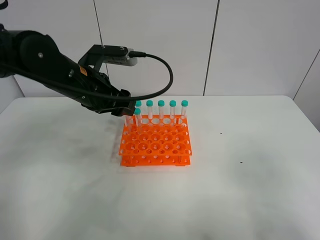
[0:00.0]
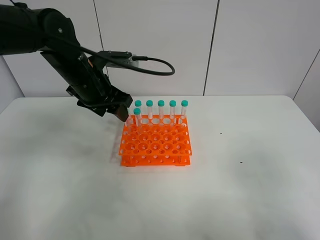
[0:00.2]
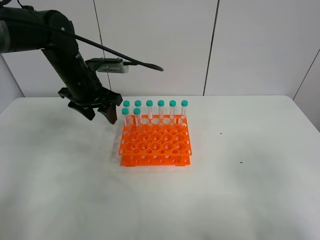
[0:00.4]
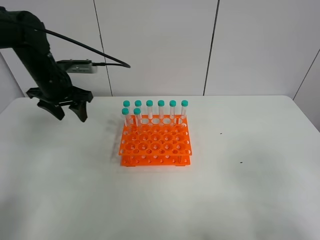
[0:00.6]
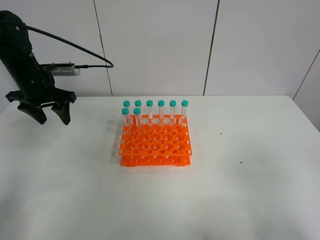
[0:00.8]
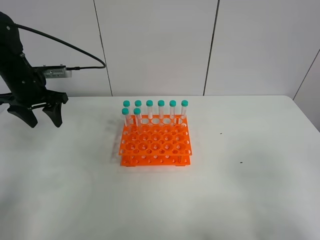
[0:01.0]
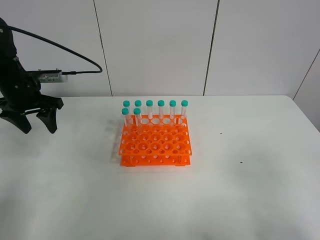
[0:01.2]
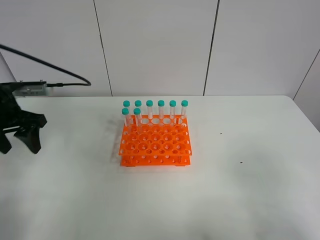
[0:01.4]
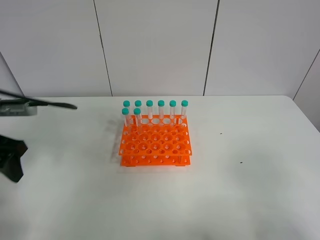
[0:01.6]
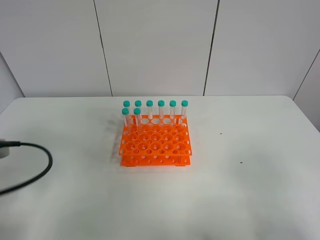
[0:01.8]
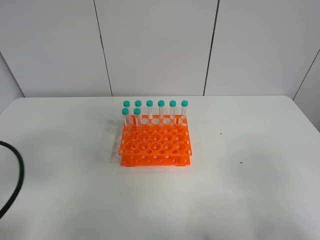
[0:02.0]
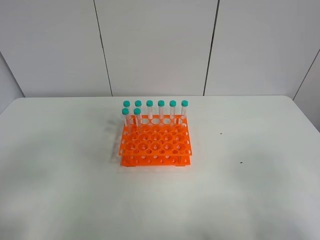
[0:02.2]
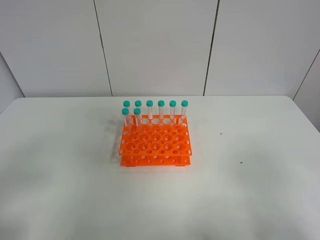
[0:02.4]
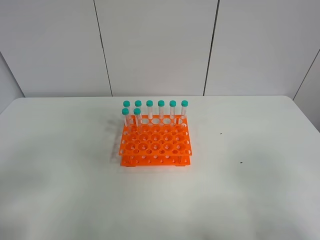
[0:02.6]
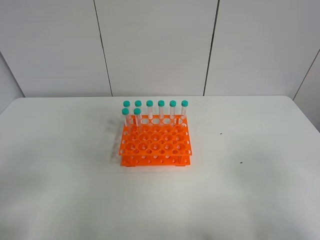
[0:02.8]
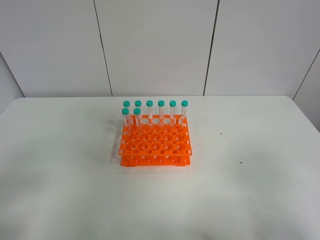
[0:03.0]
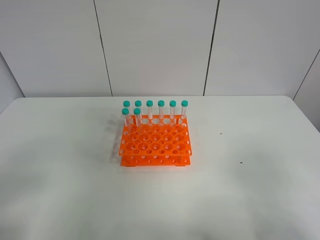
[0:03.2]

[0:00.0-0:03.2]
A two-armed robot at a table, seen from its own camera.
Task of the whole recording: Put the test tube on the table back onto the test tube rack.
0:00.0 to 0:01.6: The left gripper moves to the left and backward, approximately 20 cm.
0:01.6 to 0:03.2: The left gripper travels backward by approximately 20 cm.

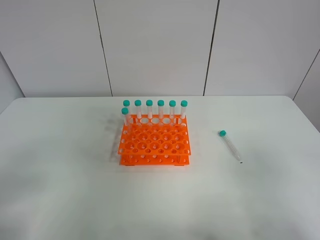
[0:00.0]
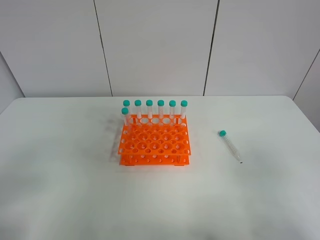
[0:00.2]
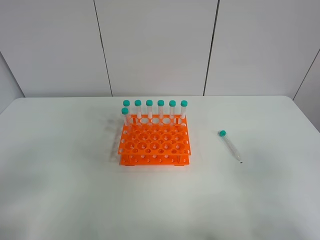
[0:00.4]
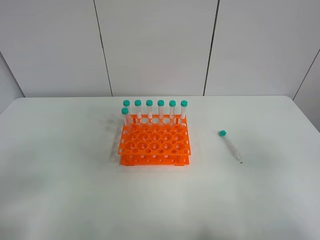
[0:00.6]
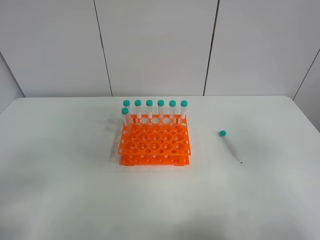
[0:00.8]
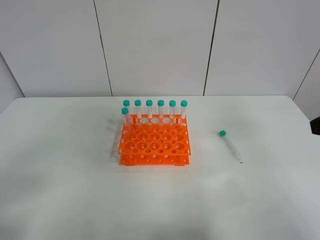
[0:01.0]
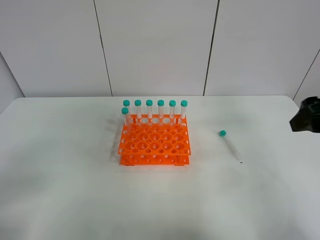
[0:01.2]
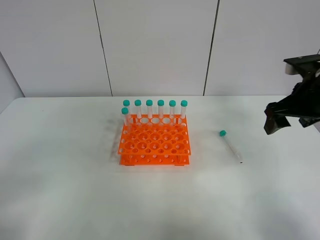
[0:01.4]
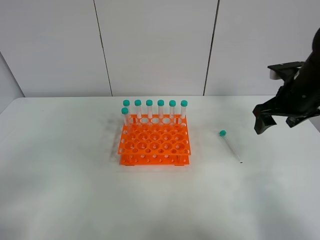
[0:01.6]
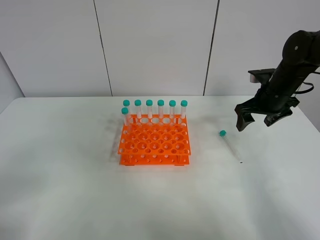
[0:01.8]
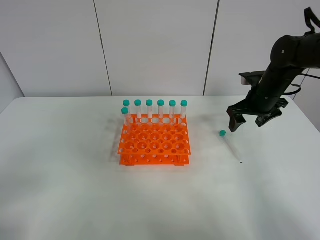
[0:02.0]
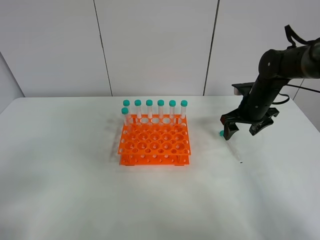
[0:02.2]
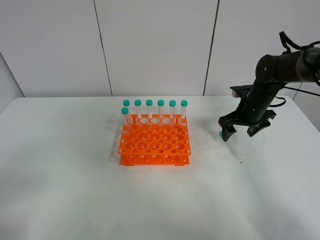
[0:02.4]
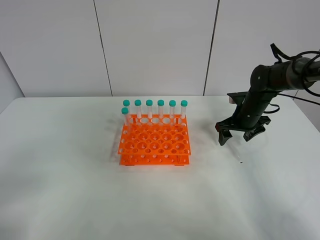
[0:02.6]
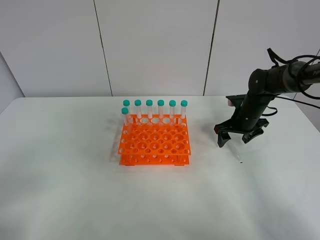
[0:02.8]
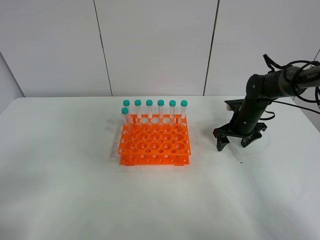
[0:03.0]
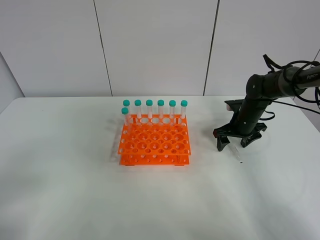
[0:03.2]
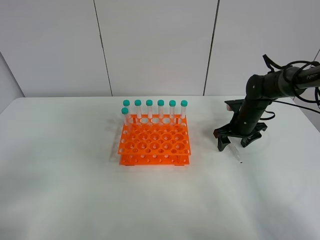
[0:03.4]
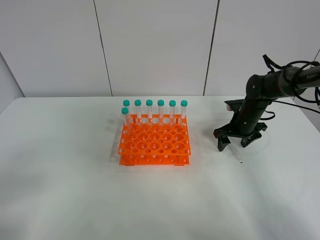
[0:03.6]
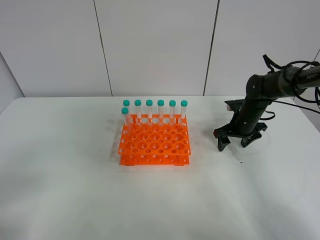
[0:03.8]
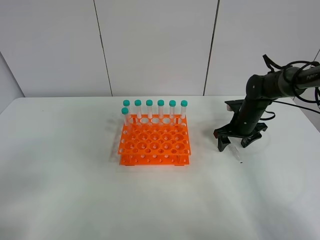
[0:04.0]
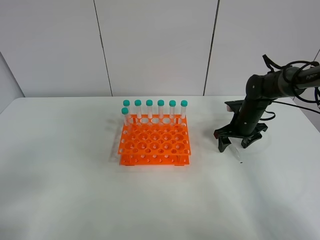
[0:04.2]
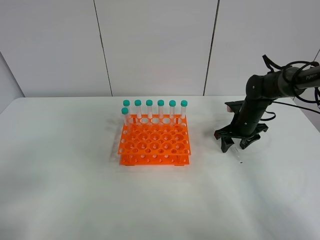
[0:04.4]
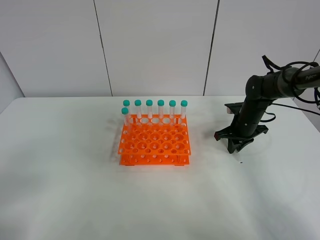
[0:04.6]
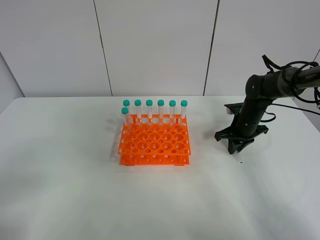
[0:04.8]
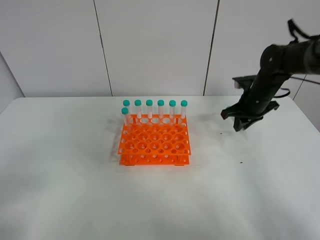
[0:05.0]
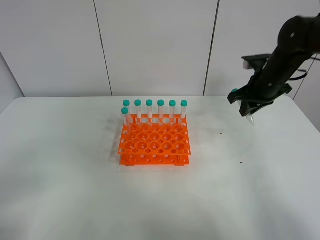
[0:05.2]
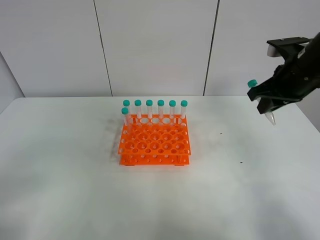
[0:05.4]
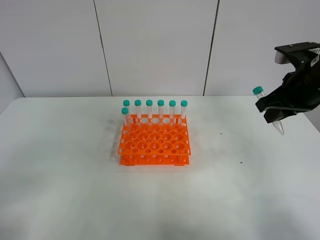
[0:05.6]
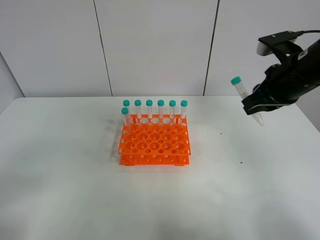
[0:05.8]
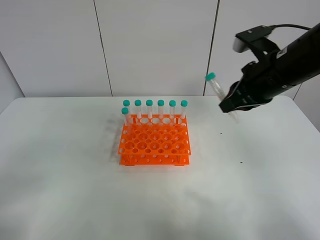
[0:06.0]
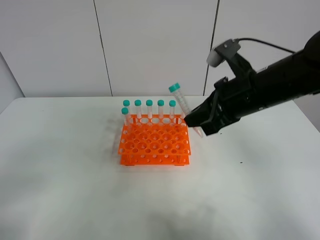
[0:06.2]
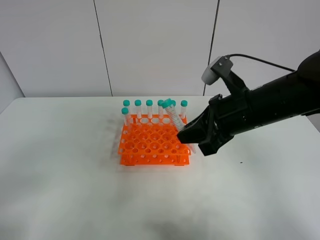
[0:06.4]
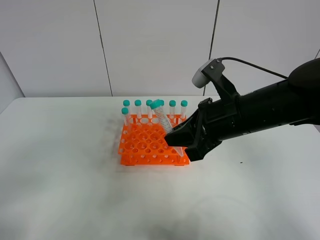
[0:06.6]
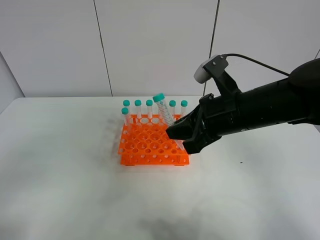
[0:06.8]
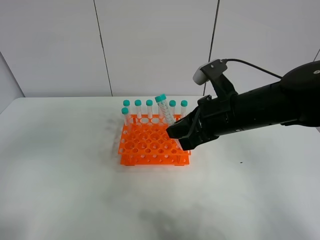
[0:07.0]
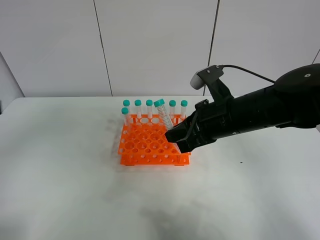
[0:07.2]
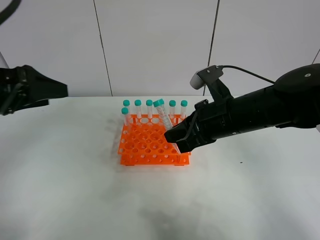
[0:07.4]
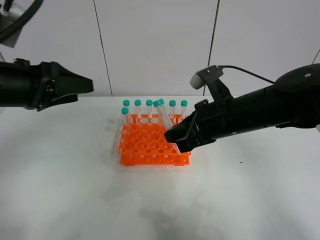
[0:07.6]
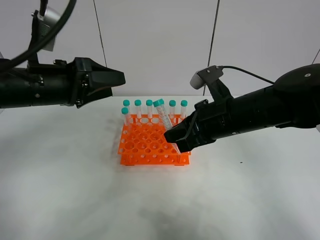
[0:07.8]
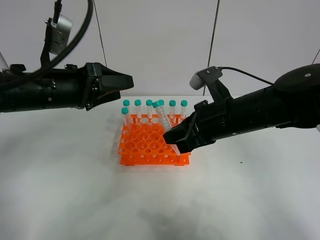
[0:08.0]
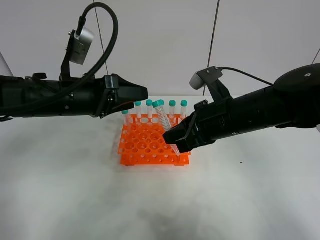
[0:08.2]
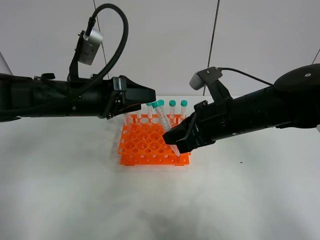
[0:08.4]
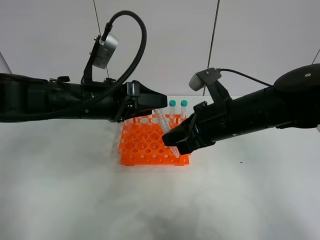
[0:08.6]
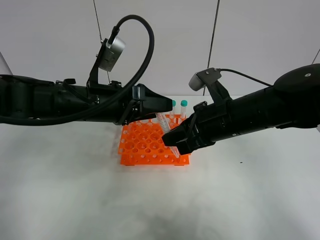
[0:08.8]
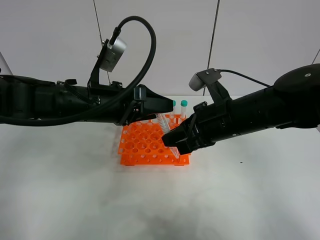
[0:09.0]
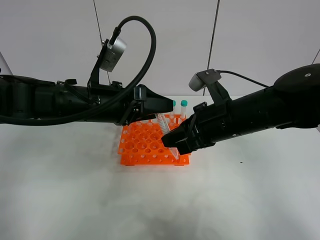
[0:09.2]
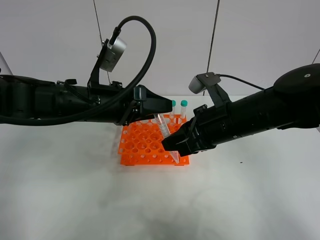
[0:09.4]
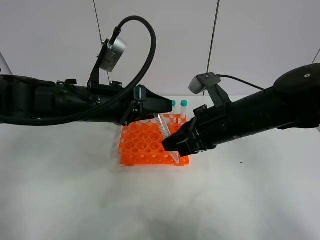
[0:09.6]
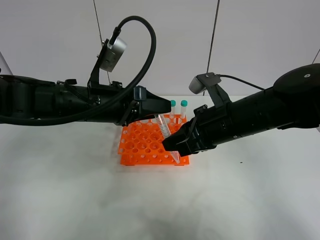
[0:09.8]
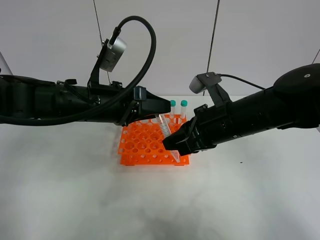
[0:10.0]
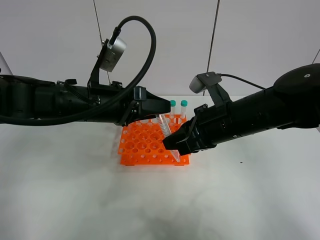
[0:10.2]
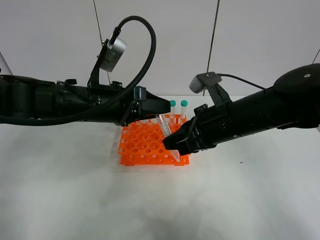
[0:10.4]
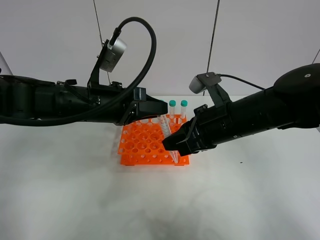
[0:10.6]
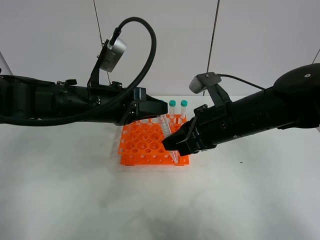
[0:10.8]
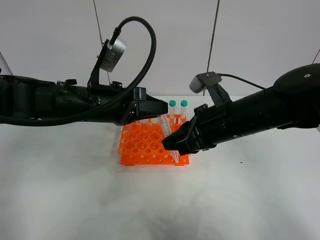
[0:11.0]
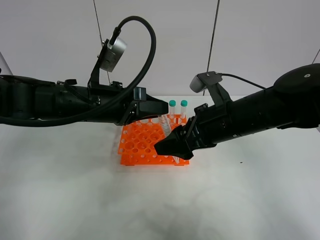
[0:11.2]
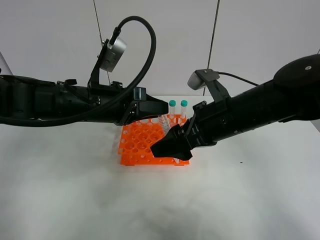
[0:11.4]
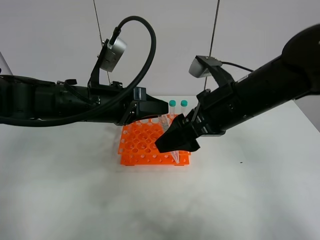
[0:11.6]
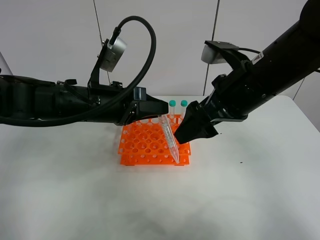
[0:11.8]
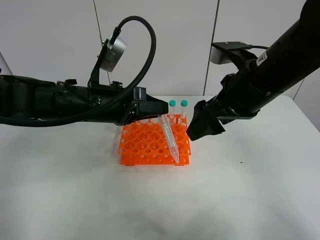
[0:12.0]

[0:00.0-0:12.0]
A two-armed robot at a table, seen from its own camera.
Task of the whole recording: Put the test tube on the table back onto the test tube rack.
Step, 0:00.0 to 0:05.2: Pick up the test tube with the right gripper.
0:00.0 to 0:01.6: The right gripper heads forward, covering about 35 cm.
0:01.6 to 0:03.0: The right gripper heads downward and forward, covering about 15 cm.
0:03.0 to 0:04.4: The right gripper closes.
0:04.4 to 0:06.0: The right gripper travels upward and backward by roughly 25 cm, and closes.
0:06.0 to 0:07.6: The right gripper goes approximately 5 cm downward. Meanwhile the left gripper goes some 25 cm forward.
0:07.6 to 0:09.0: The left gripper shifts approximately 10 cm to the right and downward.
0:09.0 to 0:10.4: The left gripper closes its fingers.
0:10.4 to 0:12.0: The right gripper moves upward, approximately 5 cm, and opens. Meanwhile the left gripper closes.

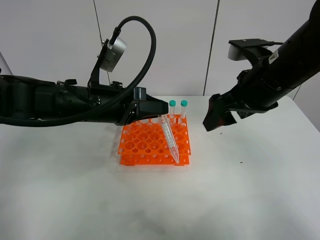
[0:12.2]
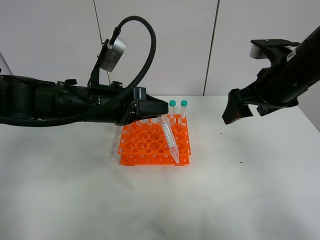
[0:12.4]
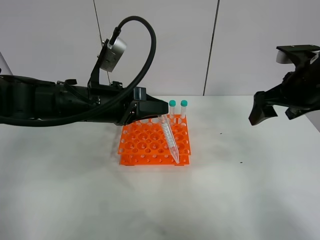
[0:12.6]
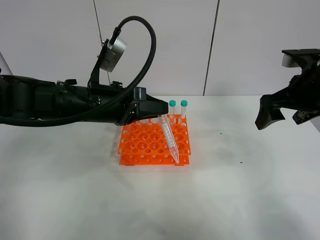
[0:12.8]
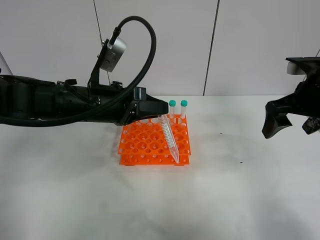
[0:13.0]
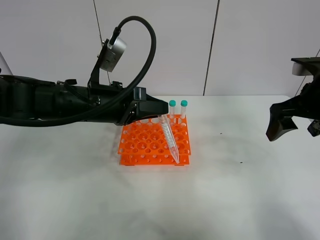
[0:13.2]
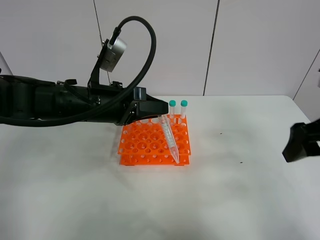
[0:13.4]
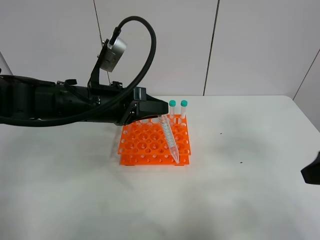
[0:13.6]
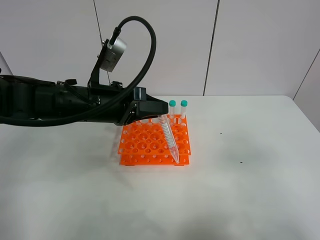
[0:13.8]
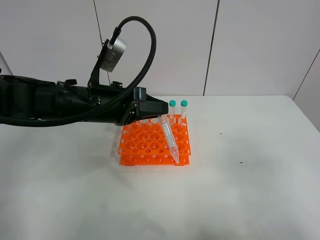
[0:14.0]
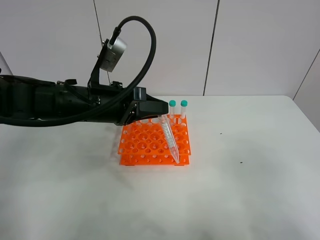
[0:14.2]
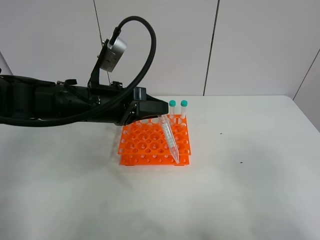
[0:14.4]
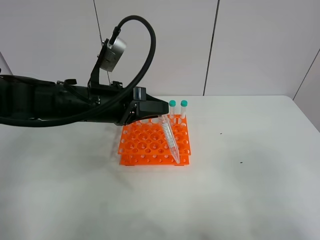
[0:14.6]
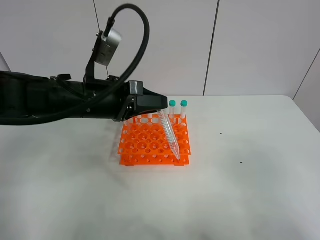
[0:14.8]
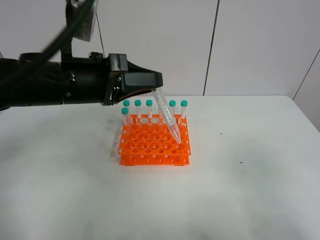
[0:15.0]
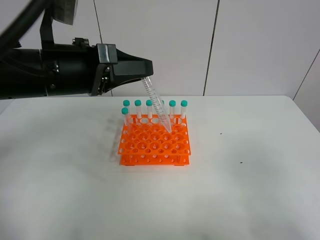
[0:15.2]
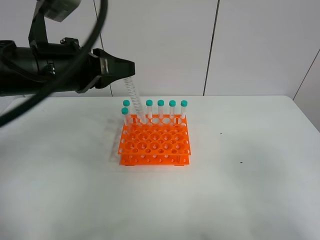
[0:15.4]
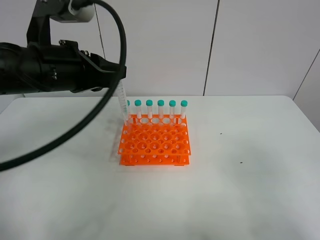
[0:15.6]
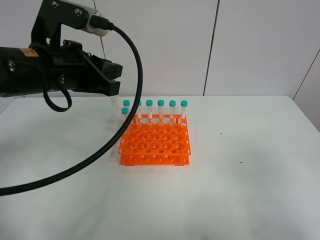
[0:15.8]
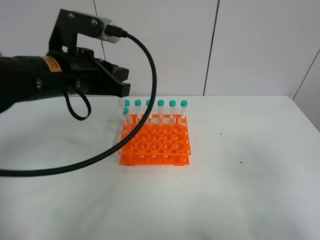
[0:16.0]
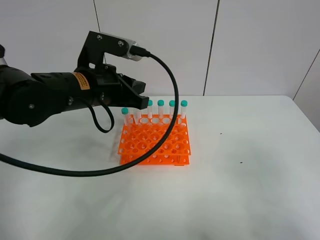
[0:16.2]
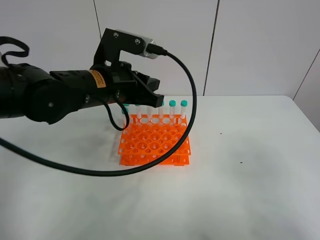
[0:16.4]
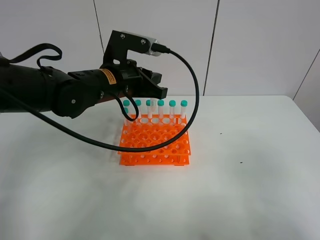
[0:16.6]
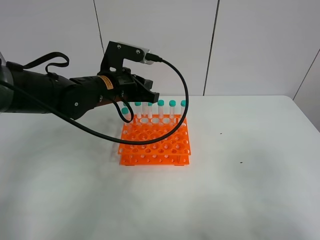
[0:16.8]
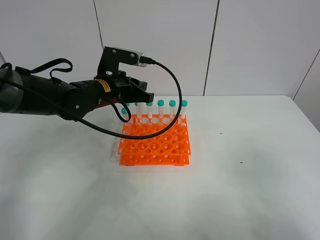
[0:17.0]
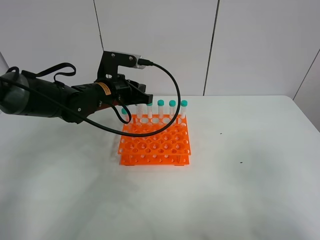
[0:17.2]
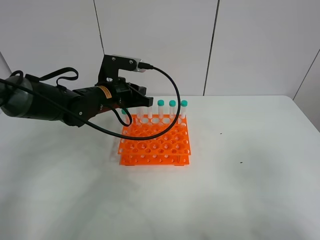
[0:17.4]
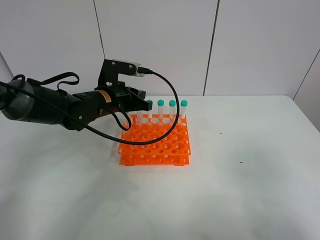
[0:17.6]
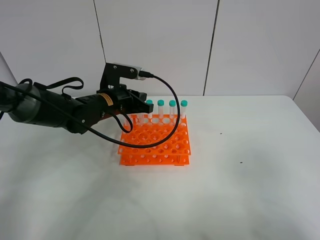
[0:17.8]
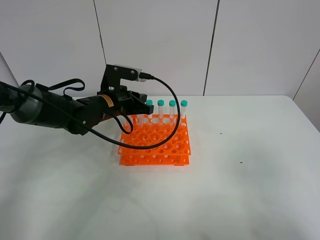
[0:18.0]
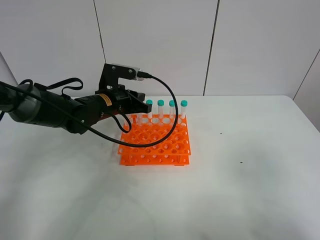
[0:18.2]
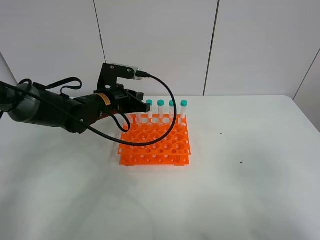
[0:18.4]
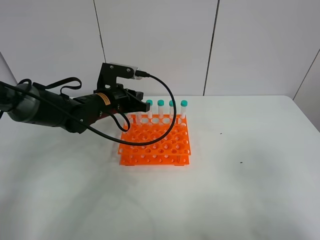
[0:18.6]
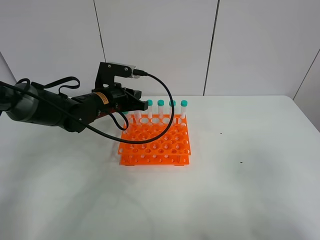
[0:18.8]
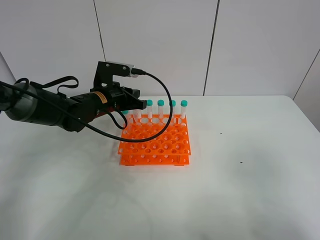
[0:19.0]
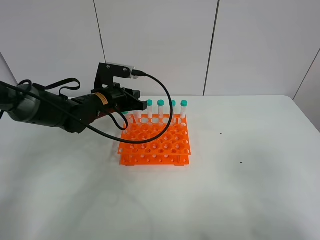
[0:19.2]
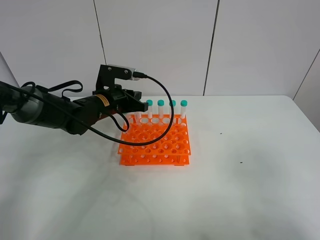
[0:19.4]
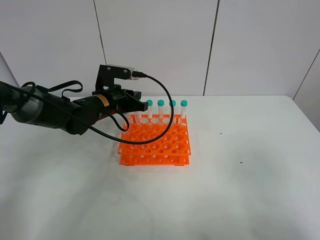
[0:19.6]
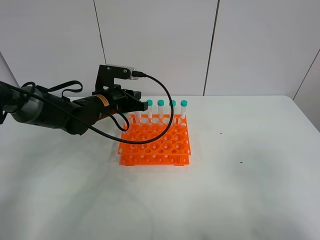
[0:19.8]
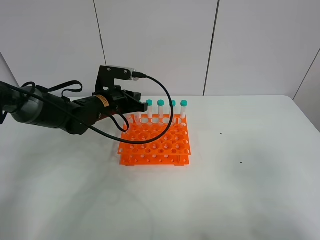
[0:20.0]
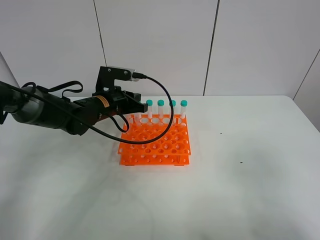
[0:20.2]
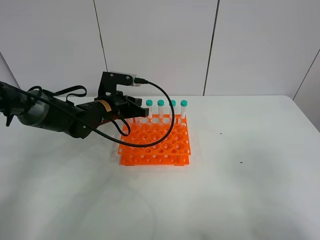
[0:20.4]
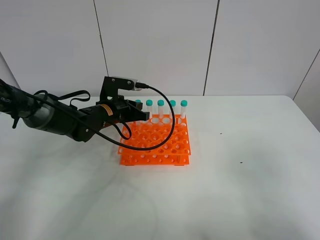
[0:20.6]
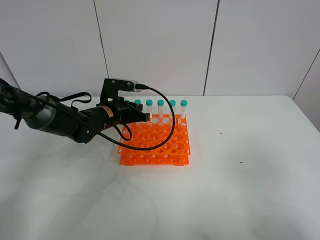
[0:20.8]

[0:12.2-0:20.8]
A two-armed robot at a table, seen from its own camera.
Task of the whole recording: Put the test tube on the table back onto the test tube rack.
0:12.2 to 0:13.6: The right gripper heads backward and to the right, covering roughly 20 cm.
0:13.6 to 0:15.0: The right gripper shifts about 10 cm backward. Meanwhile the left gripper is displaced upward by about 5 cm.
0:15.0 to 0:16.6: The left gripper travels forward by approximately 10 cm.
0:16.6 to 0:18.0: The left gripper shifts approximately 5 cm downward.
0:18.0 to 0:20.8: The grippers move only a little.
